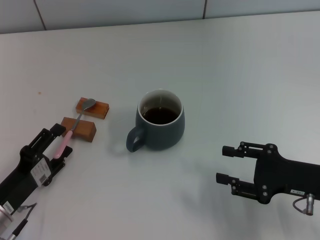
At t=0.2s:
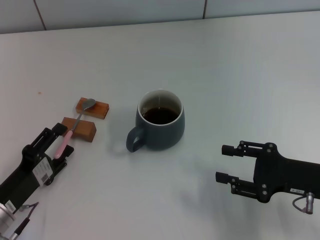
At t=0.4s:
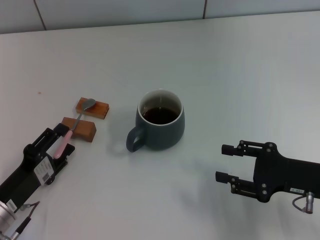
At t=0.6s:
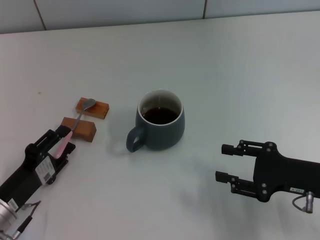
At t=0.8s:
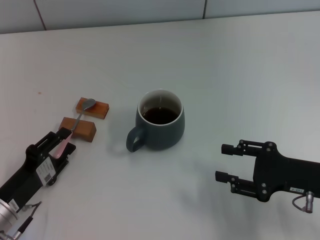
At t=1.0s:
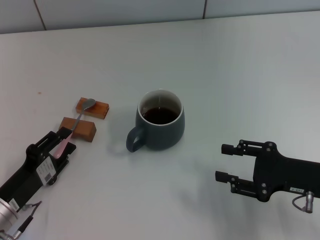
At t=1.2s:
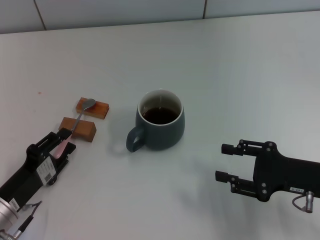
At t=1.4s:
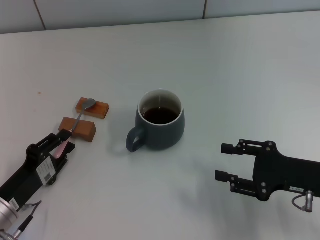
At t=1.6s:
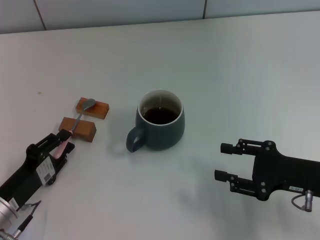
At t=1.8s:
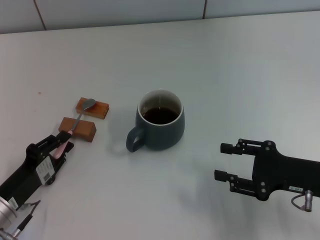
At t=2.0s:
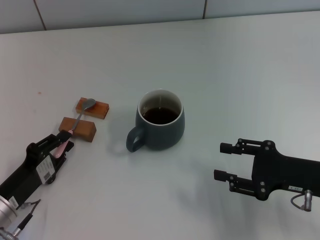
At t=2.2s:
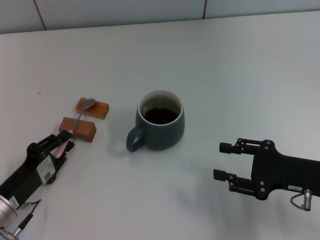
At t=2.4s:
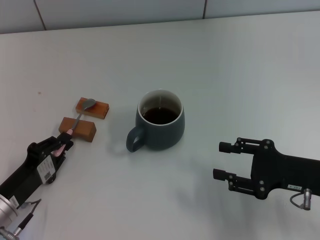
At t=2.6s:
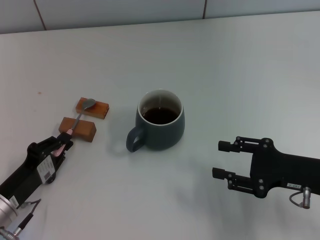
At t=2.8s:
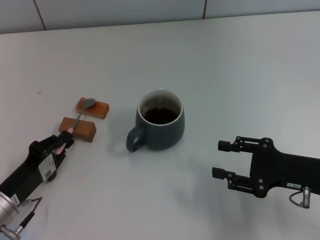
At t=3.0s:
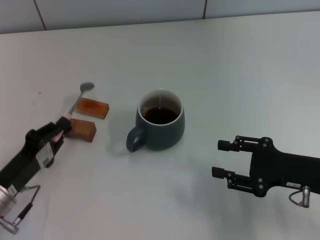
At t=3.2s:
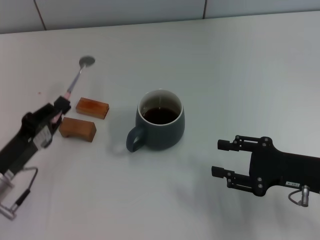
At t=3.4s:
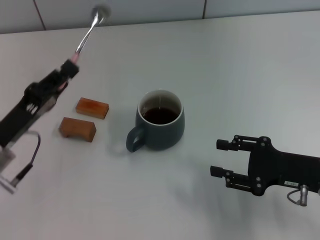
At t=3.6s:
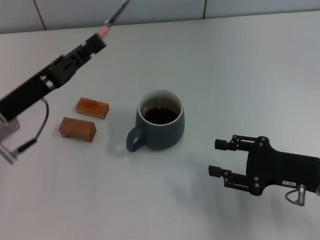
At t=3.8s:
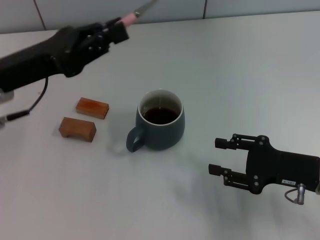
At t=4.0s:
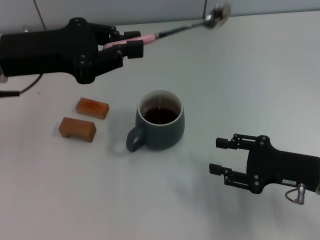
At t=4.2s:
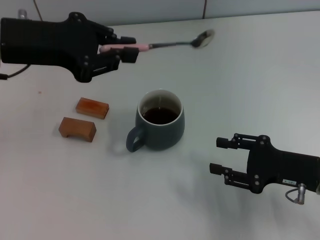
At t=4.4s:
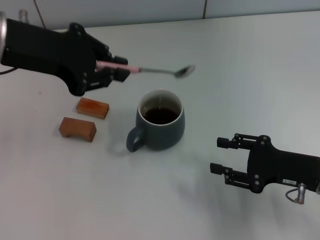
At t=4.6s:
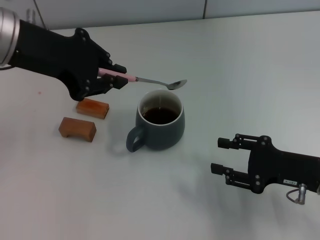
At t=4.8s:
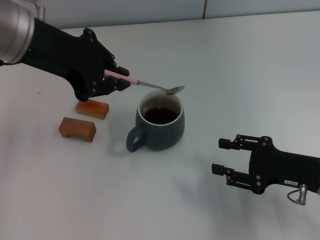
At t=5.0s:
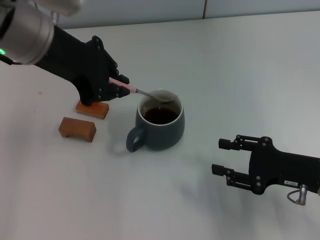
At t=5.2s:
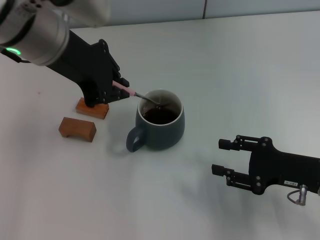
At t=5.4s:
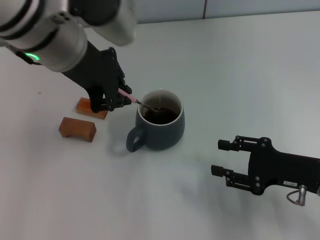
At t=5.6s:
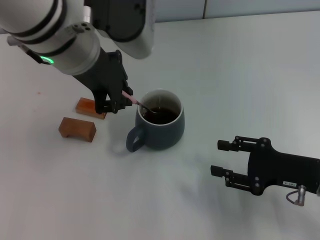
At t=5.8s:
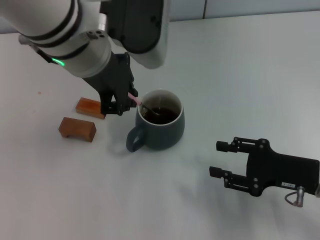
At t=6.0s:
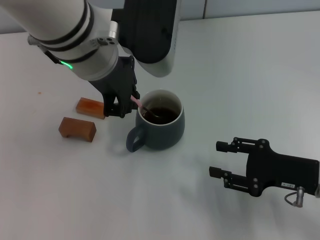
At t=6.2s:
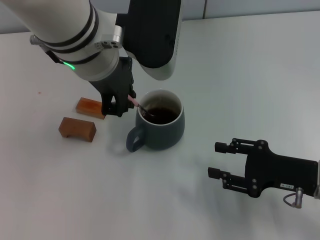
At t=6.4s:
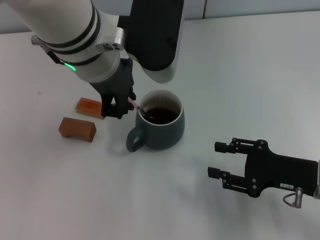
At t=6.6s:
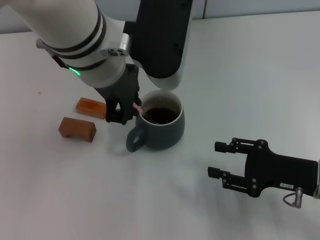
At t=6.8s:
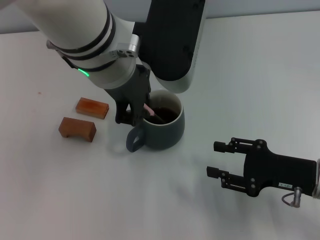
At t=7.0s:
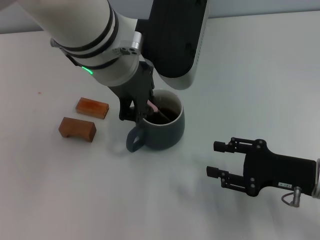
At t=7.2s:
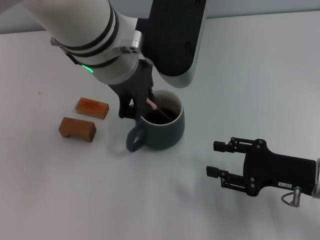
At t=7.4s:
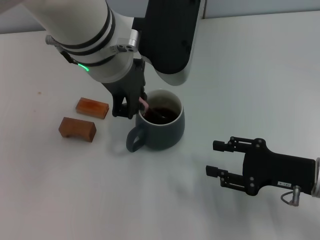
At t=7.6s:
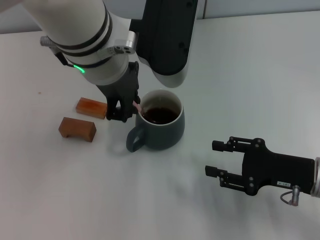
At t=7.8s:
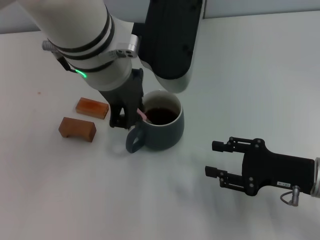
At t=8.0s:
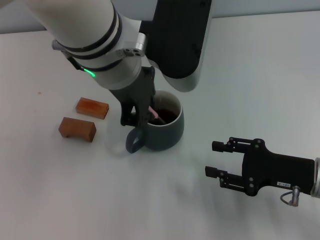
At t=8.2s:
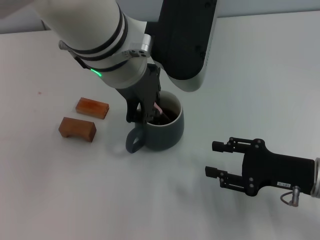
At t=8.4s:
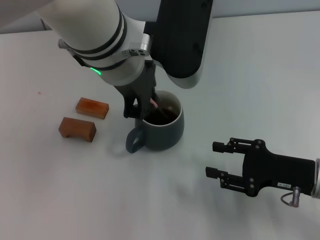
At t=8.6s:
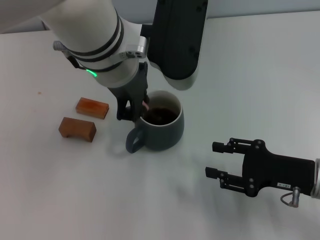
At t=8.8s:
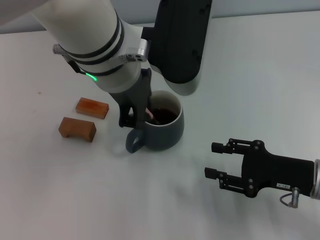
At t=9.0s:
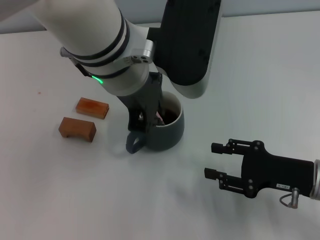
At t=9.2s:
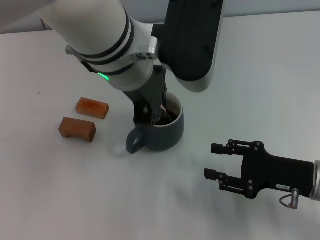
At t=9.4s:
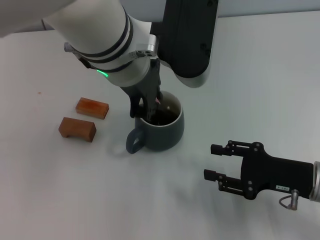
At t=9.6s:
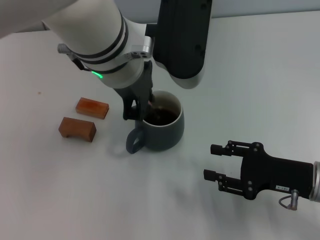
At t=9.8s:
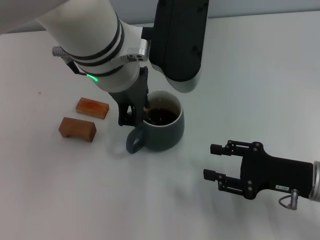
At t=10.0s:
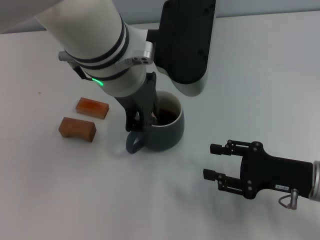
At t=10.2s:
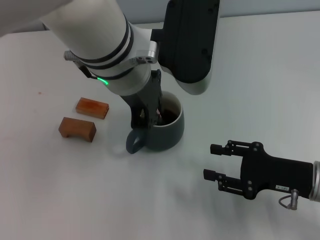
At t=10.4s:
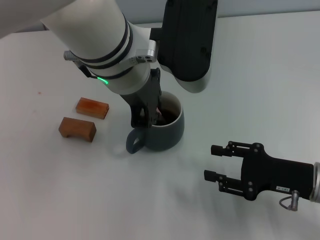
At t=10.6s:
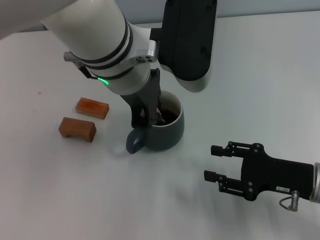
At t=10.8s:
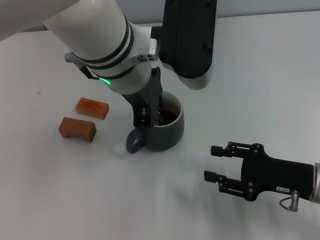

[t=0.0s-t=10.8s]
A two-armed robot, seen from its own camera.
Task of the whole recording: Move the grey cup to the center, lift the pink spoon, stir it three times in the cup, and put the spoon into the cup.
Step, t=0.0s to t=3.2s: Pick up the spoon with the left gripper.
t=0.0s to t=1.6s: The left gripper closes its fingers.
t=1.6s to t=3.0s: The grippers move only a little.
t=3.0s to t=4.6s: The left gripper heads upward and forward, covering some 30 cm.
t=4.6s to t=6.2s: The left gripper moves to the right, approximately 10 cm.
t=6.2s to t=10.8s: The grippers make only small movements.

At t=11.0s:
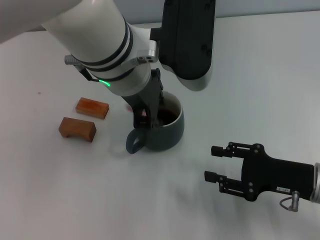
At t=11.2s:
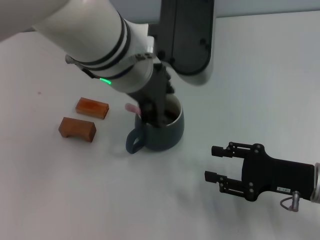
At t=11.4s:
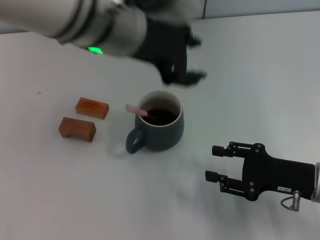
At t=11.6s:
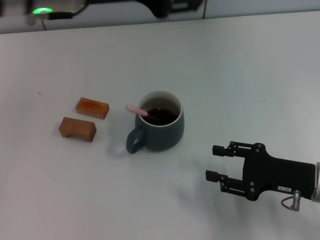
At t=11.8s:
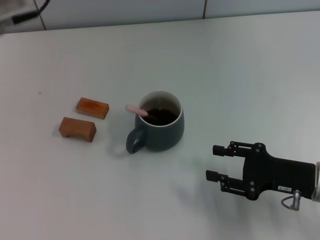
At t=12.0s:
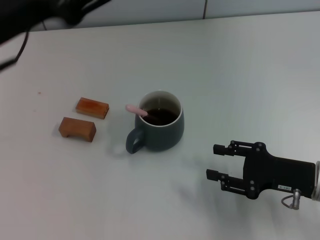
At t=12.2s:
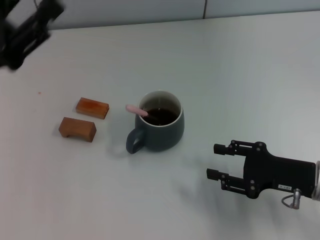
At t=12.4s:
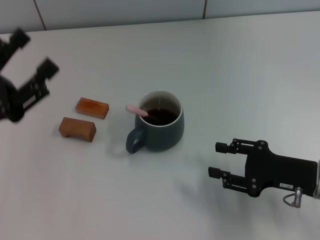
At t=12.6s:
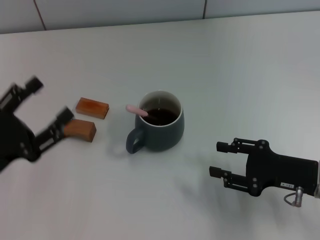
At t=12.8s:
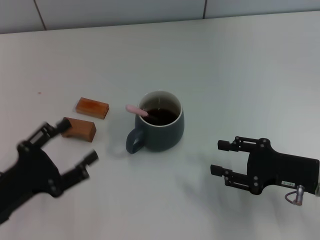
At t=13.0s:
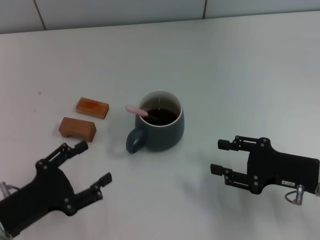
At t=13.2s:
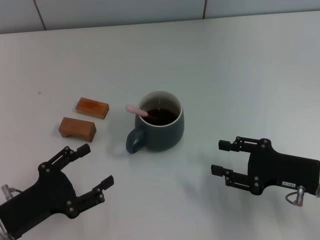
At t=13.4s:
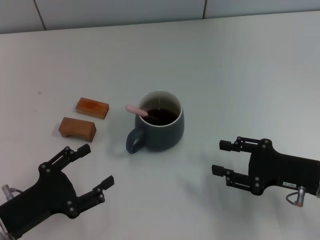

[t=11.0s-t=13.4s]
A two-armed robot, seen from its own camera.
Task of the whole recording: Move the grey cup to the center, lift the pink spoon, stir it three times in the cup, and put the spoon into the cup.
t=11.0s to t=12.2s: The left gripper goes about 25 cm to the left, and opens.
t=12.2s to t=13.4s: The left gripper heads downward and backward, covering about 15 cm.
